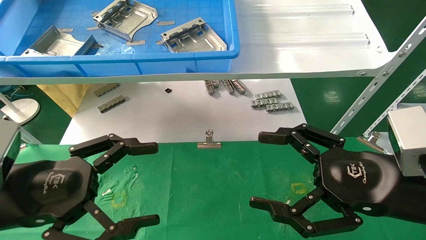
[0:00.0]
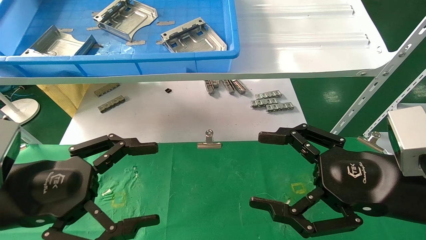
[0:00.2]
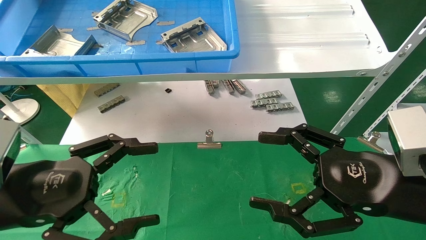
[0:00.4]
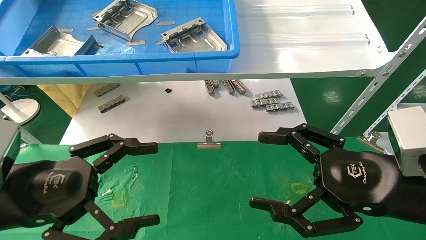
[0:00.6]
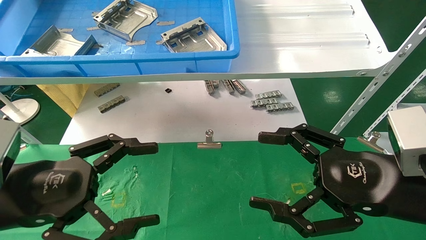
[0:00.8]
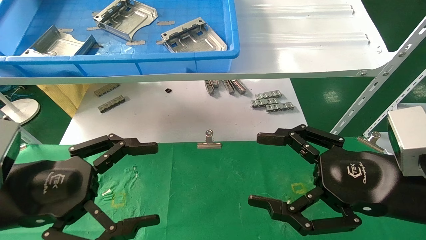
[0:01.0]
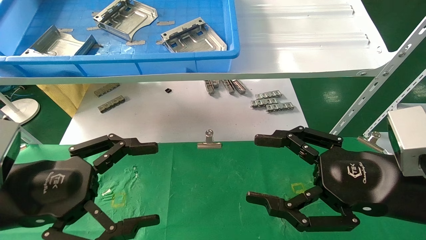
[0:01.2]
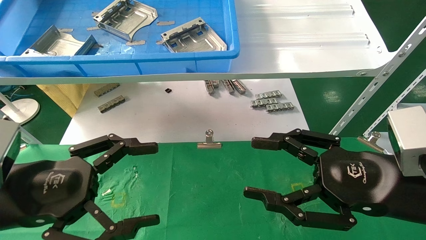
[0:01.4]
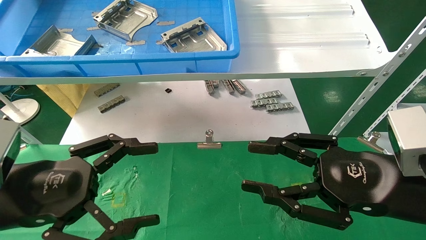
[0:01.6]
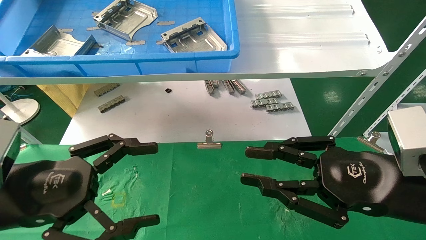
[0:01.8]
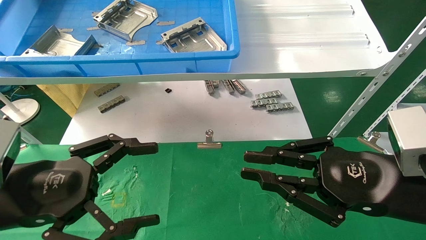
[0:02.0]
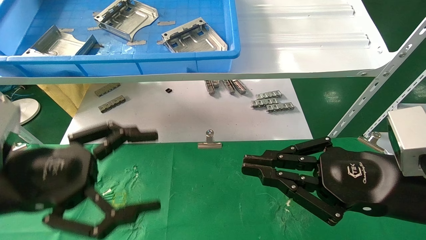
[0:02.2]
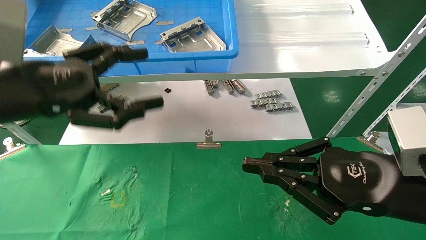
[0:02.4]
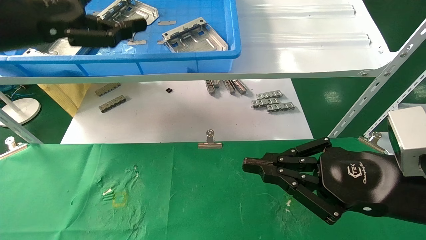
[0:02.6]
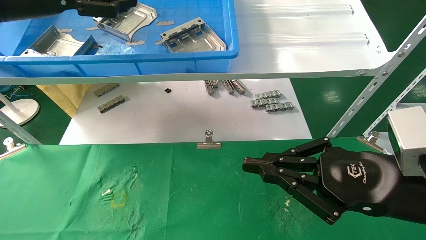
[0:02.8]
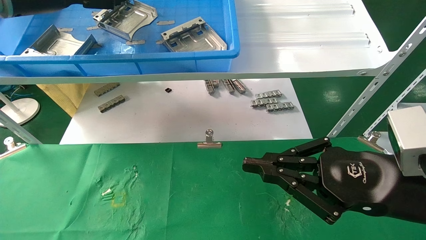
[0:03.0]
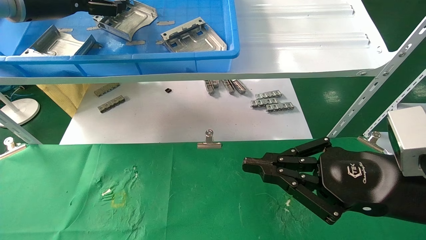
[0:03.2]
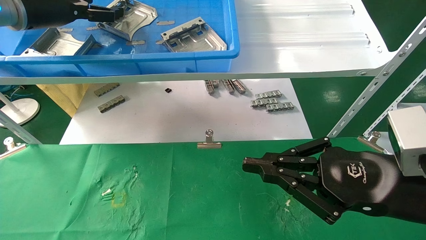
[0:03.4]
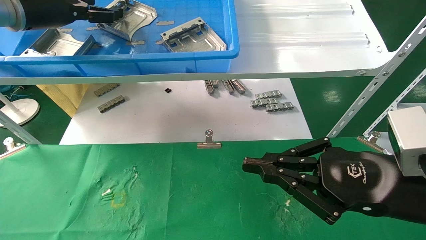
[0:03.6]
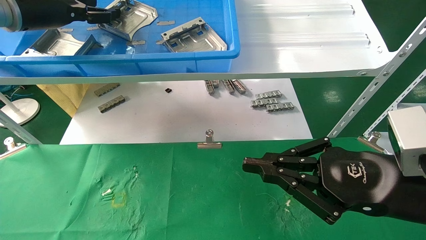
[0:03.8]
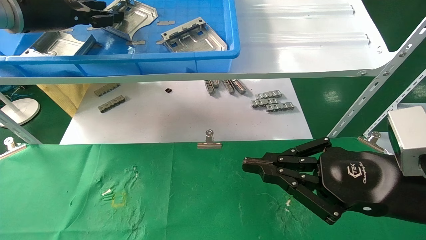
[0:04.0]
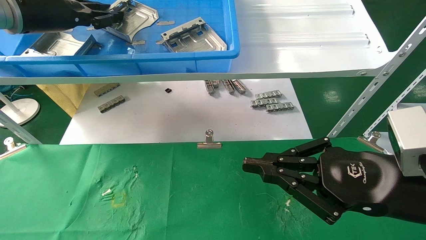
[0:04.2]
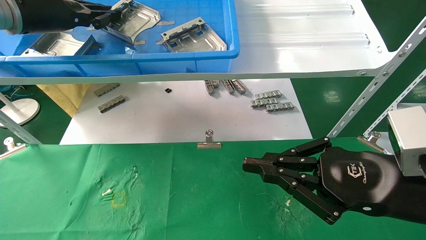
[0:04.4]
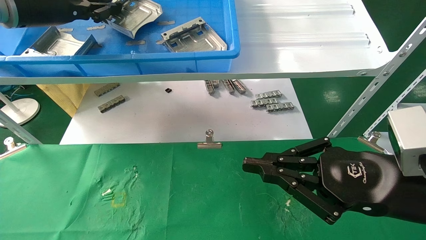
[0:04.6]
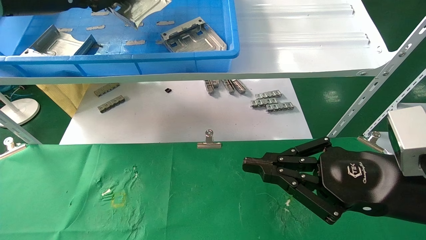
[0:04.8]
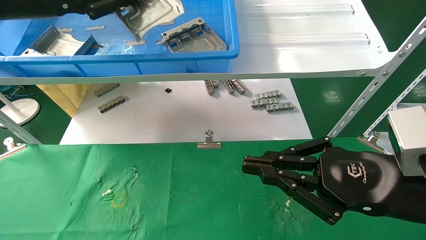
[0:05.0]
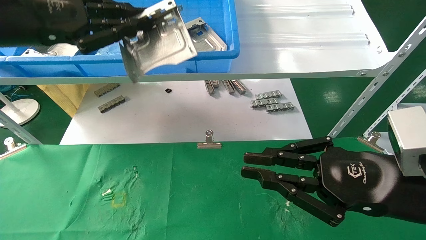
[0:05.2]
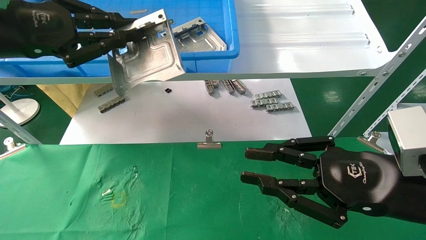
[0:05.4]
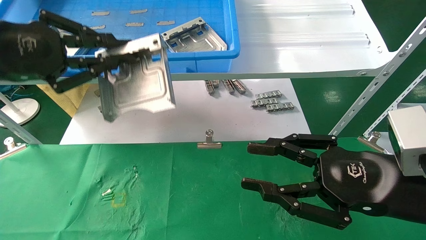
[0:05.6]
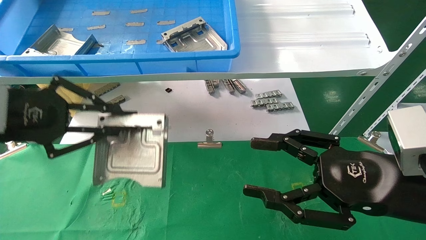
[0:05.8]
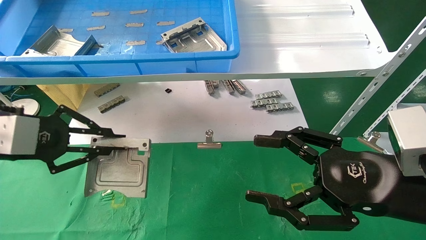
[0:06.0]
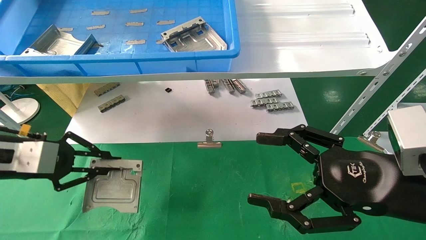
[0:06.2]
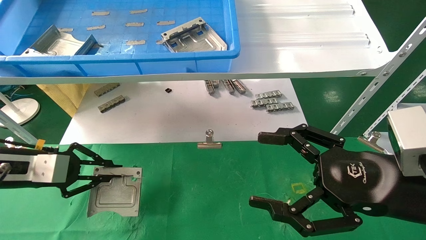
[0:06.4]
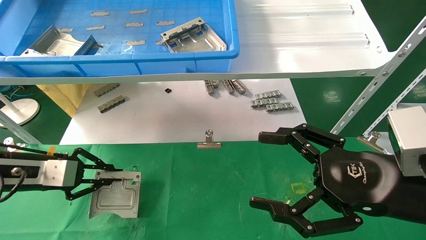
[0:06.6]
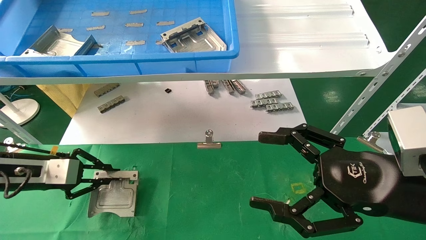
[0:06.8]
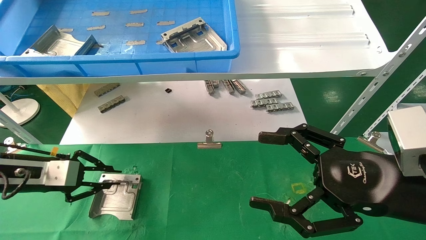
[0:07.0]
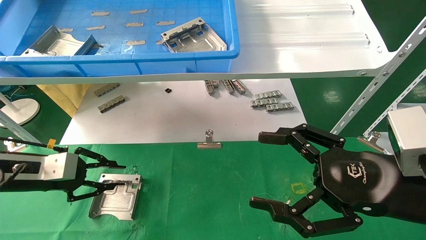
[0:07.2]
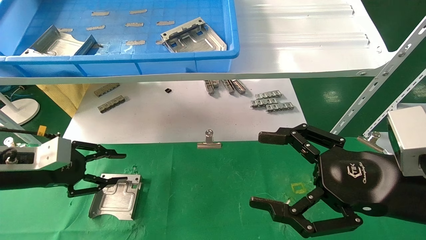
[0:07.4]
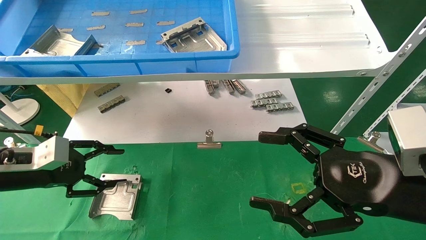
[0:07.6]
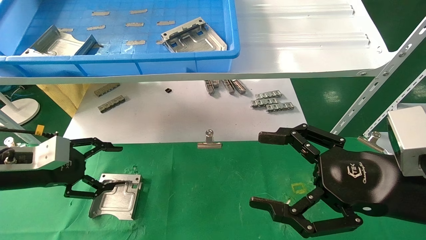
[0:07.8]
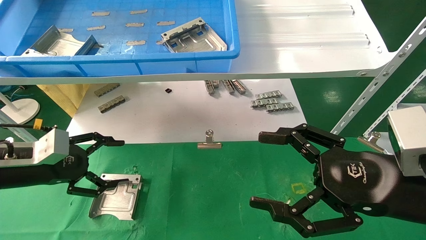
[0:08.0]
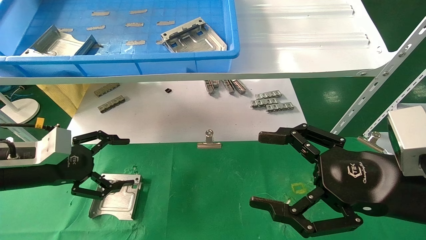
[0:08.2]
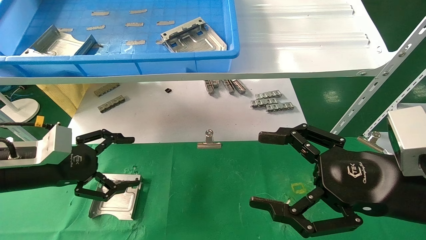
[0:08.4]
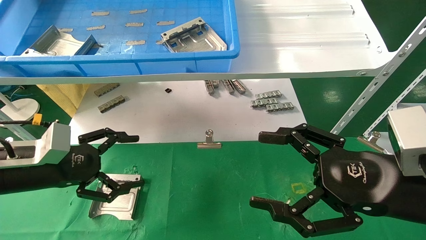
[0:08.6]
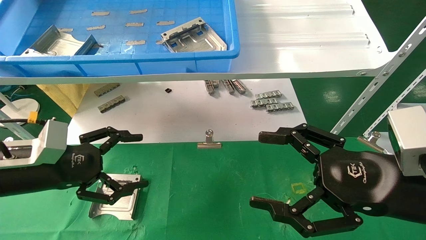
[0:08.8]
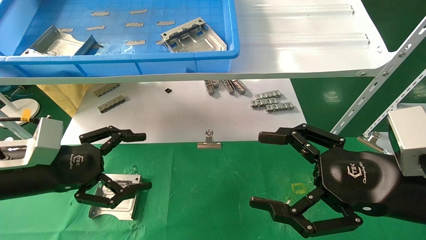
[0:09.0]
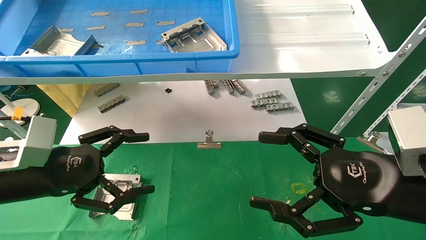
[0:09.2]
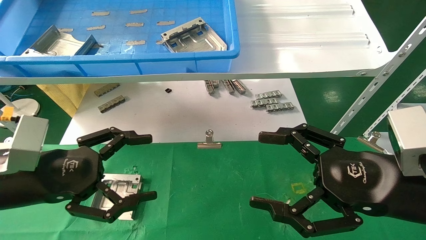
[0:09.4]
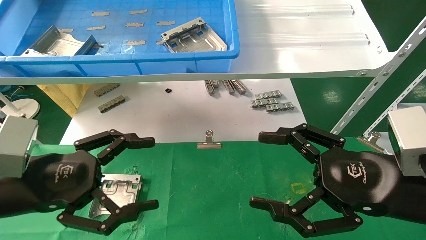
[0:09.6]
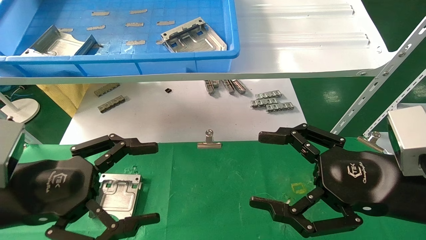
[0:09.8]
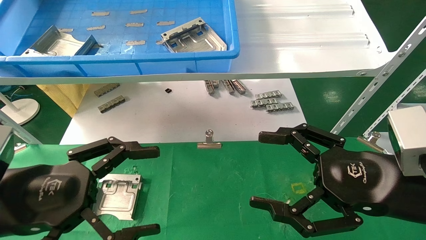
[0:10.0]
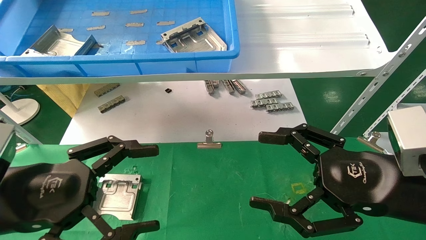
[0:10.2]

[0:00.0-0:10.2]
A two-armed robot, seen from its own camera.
Task of the whole recording: use the mechanical arm to pick up the parts and place them on the table.
Step, 0:02.4 to 0:04.4: Pick up the hard drive bracket from the feeding area.
Step, 0:04.6 to 0:07.4: Place the hard drive bracket into the box.
0:00.0 to 0:01.4: Both grippers stay about where they are.
0:01.4 to 0:03.0: The right gripper closes. The left gripper travels upward and forward by approximately 30 cm.
0:03.0 to 0:04.4: The left gripper closes its fingers.
0:04.4 to 0:05.8: The left gripper goes roughly 20 cm backward and downward. Meanwhile the right gripper opens its fingers.
0:05.8 to 0:07.2: The left gripper goes roughly 15 cm downward and forward. The right gripper opens its fingers.
0:07.2 to 0:08.8: The left gripper moves to the right, about 5 cm, and opens.
0:08.8 to 0:10.2: The left gripper is displaced backward by some 10 cm.
